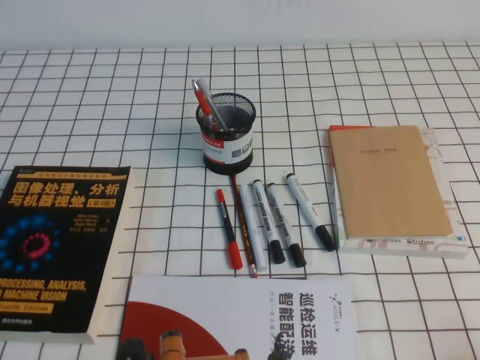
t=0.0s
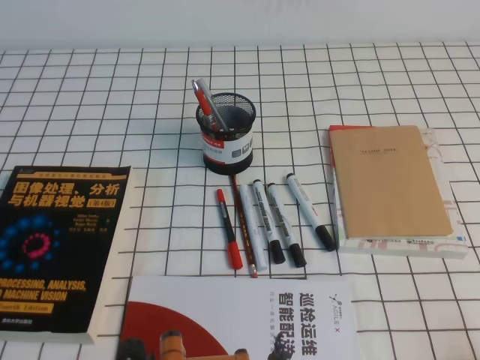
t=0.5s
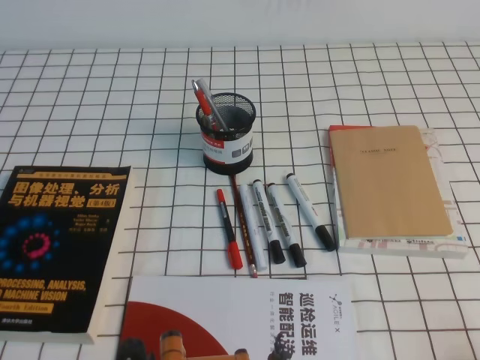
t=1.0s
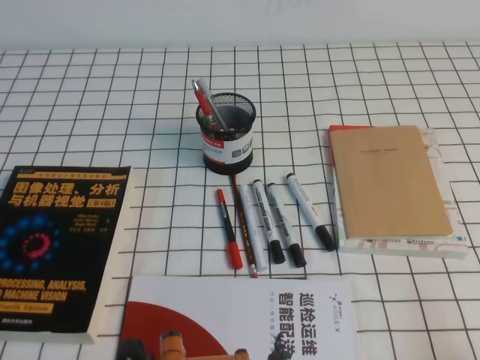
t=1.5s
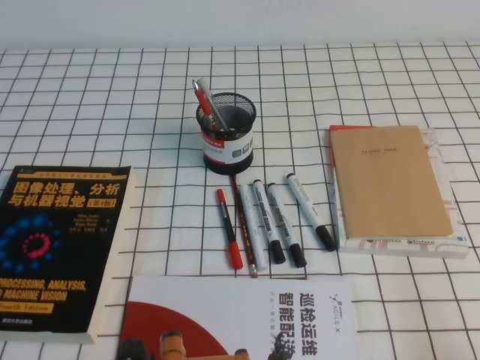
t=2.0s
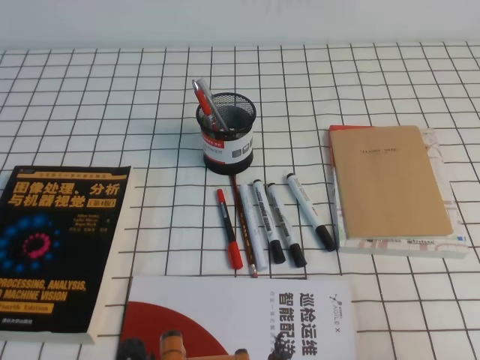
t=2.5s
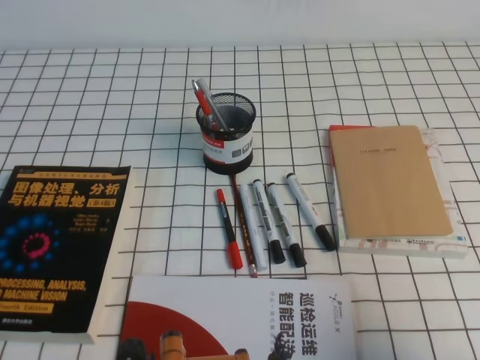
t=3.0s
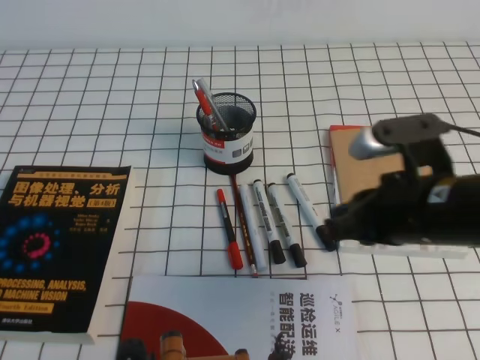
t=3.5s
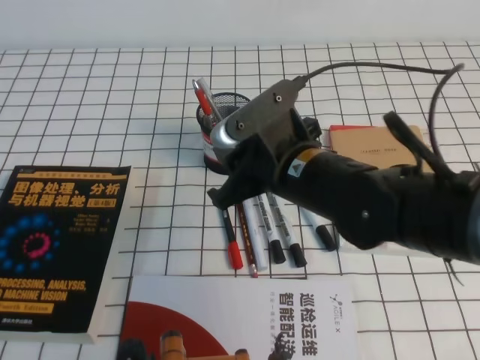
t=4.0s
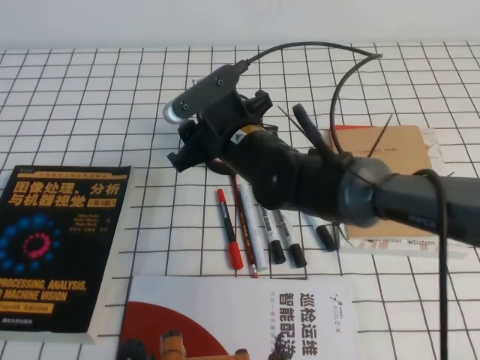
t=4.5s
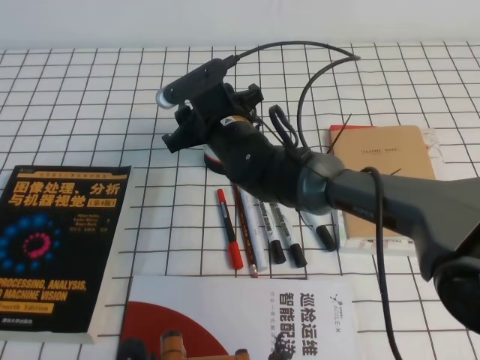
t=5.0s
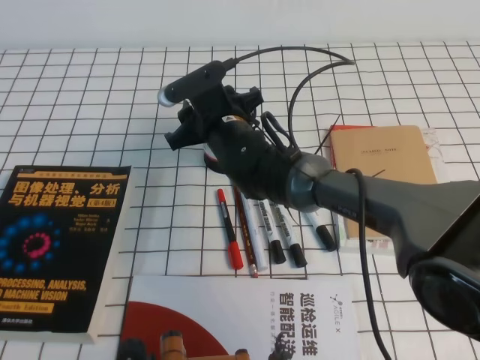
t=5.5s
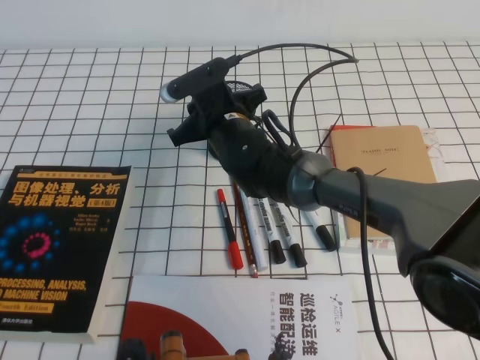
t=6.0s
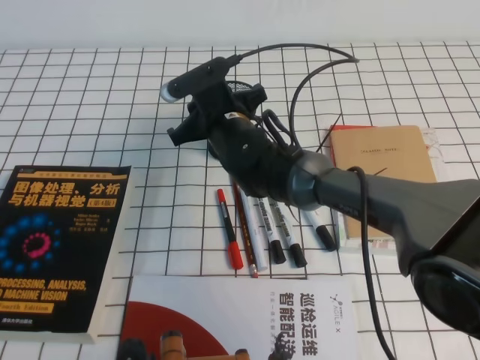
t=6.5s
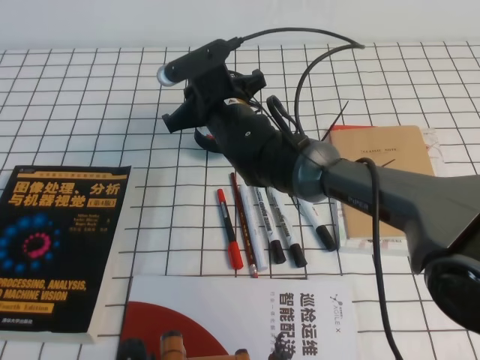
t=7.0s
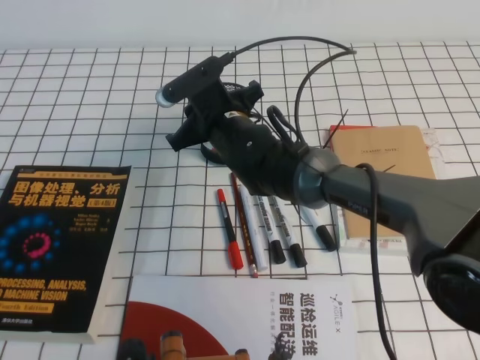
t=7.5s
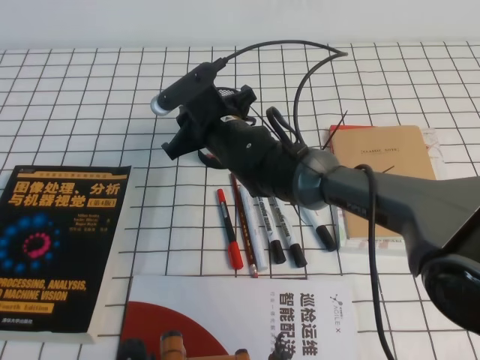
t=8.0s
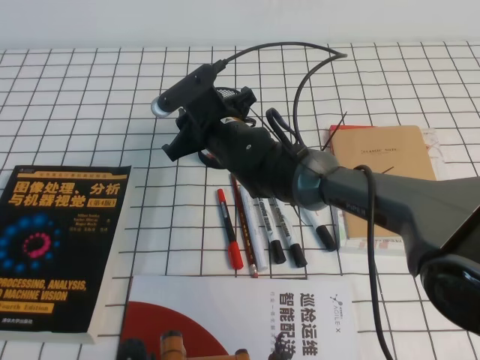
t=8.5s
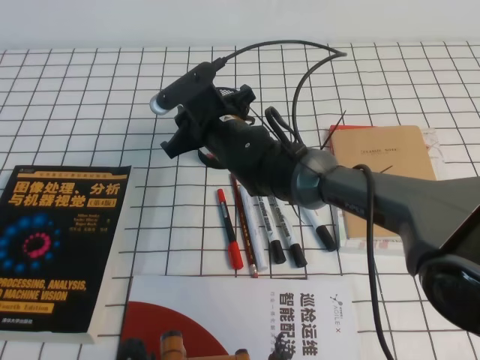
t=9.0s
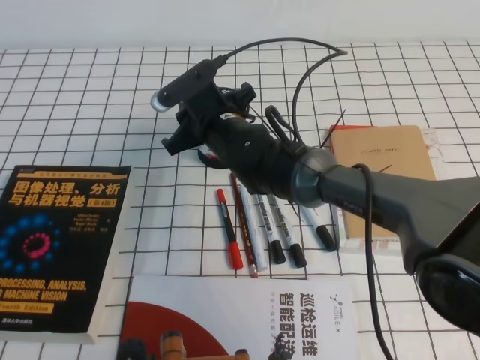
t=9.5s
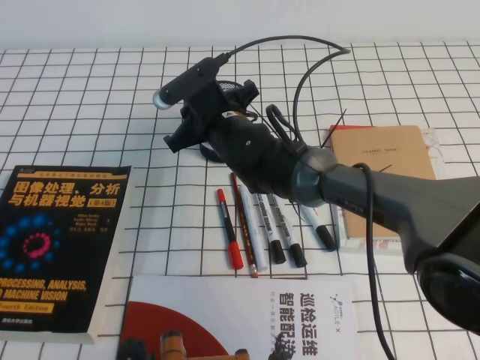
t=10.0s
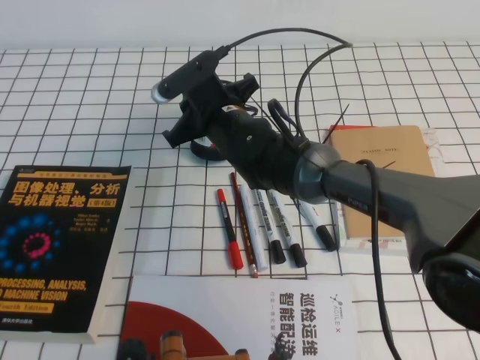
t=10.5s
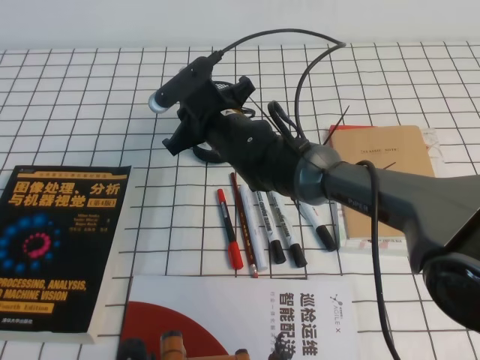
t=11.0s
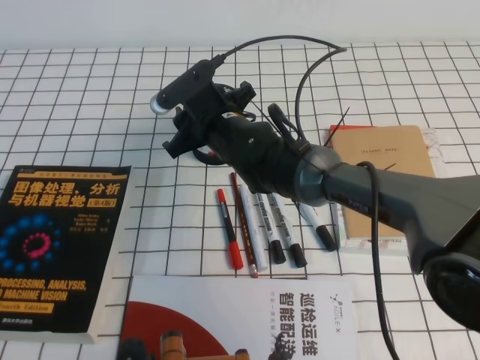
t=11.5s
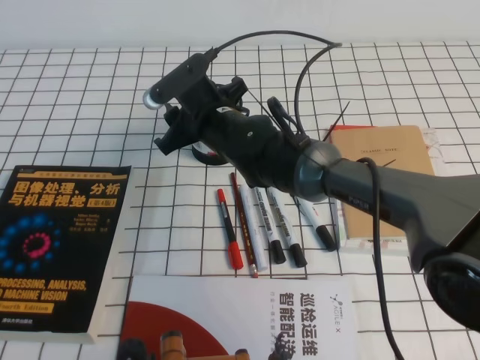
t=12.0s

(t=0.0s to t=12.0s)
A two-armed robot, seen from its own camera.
t=2.0s - t=4.0s: The right gripper travels to the left and forward by approximately 35 cm, and opens.
t=4.0s - t=6.0s: The right gripper travels forward, to the left and downward by roughly 20 cm, and opens, then closes again.
t=6.0s - t=8.0s: There are only small adjustments of the grippers.
t=8.0s - t=10.0s: Both grippers stay about where they are.
t=10.0s - t=12.0s: The right gripper opens up.

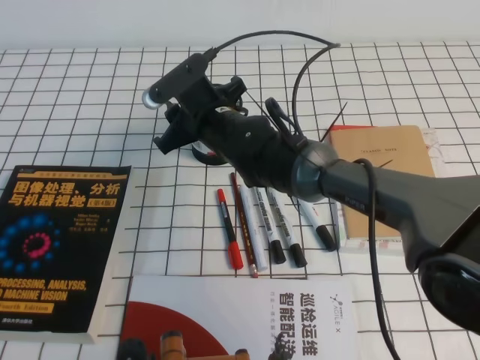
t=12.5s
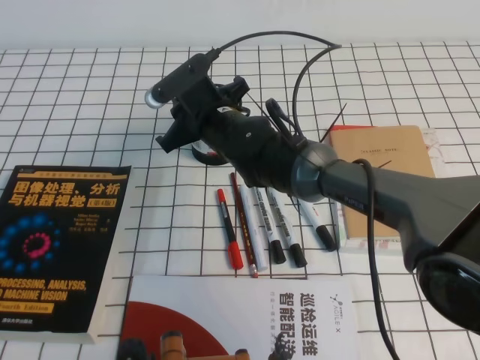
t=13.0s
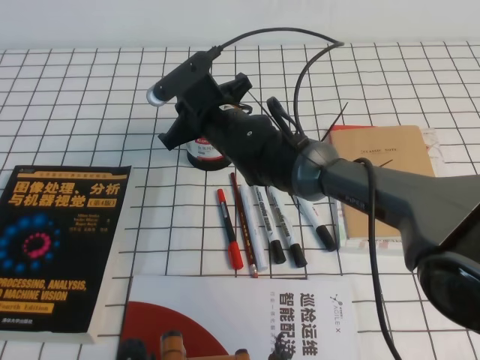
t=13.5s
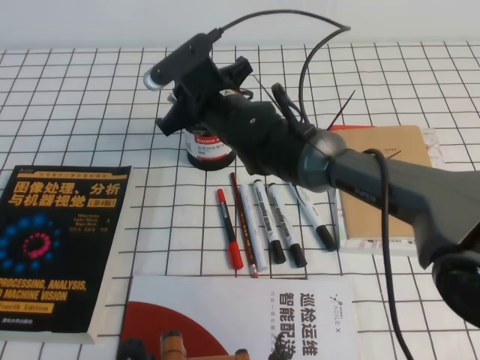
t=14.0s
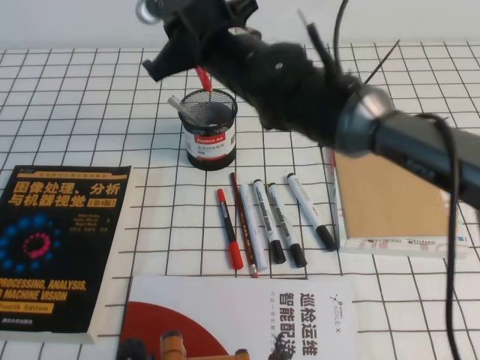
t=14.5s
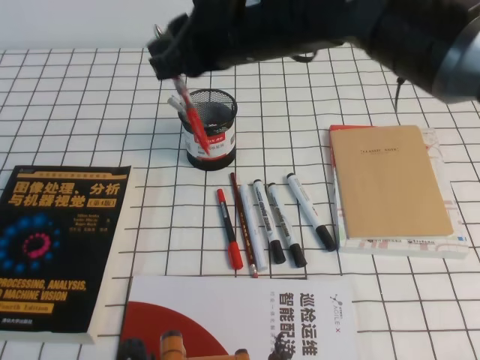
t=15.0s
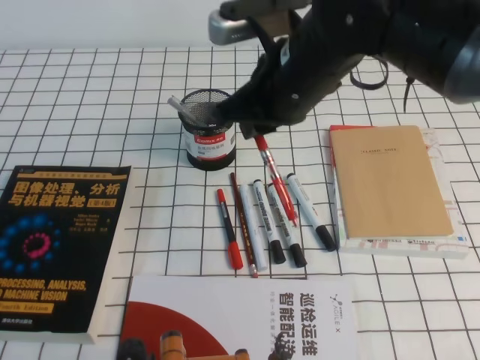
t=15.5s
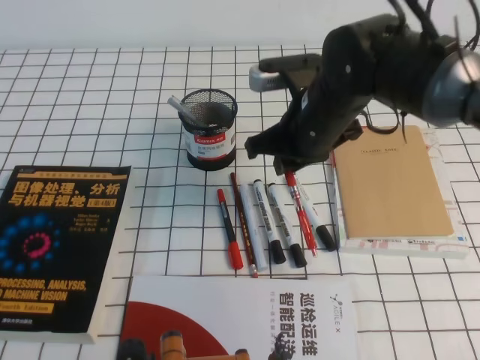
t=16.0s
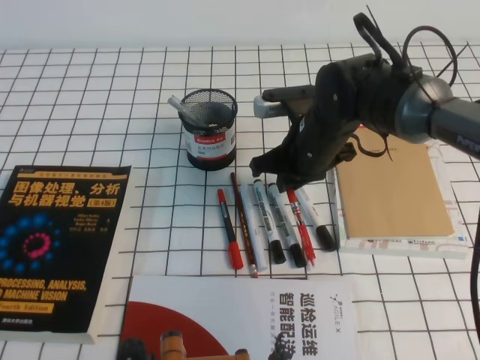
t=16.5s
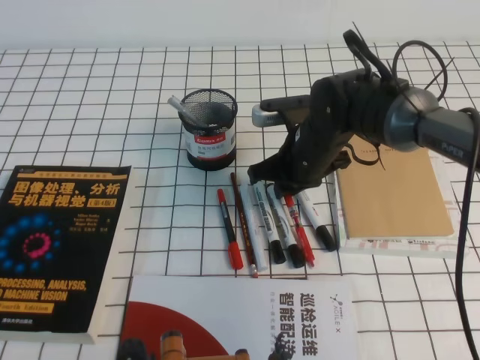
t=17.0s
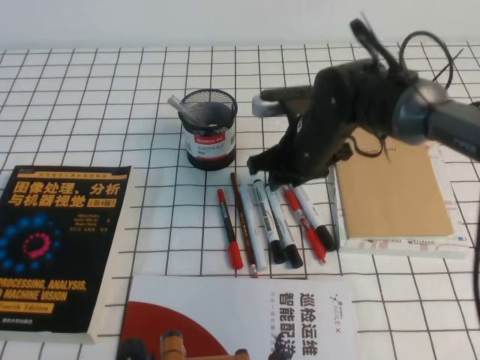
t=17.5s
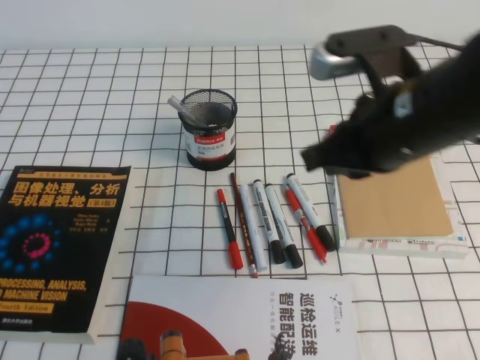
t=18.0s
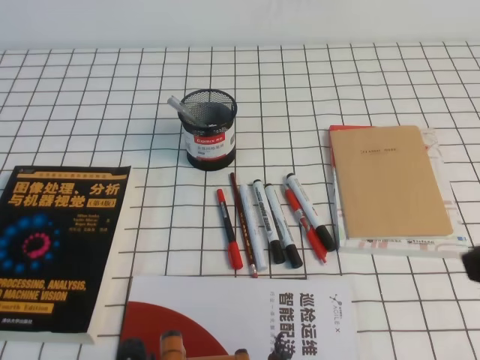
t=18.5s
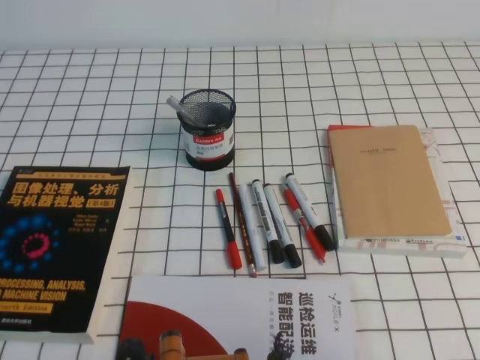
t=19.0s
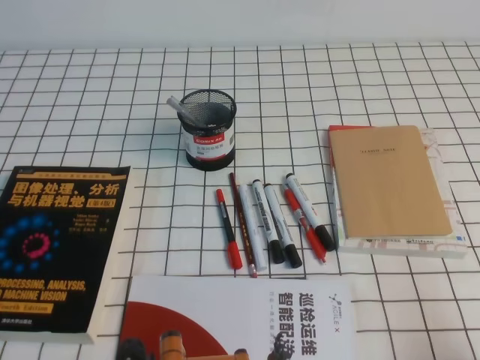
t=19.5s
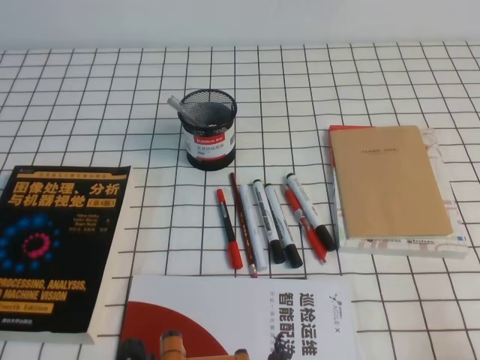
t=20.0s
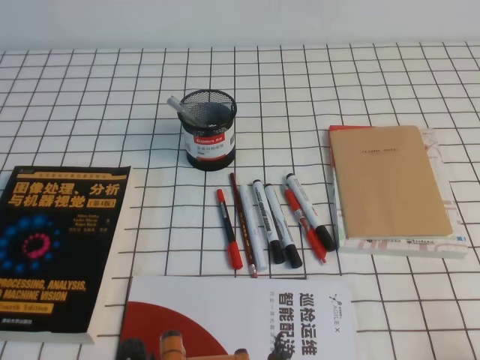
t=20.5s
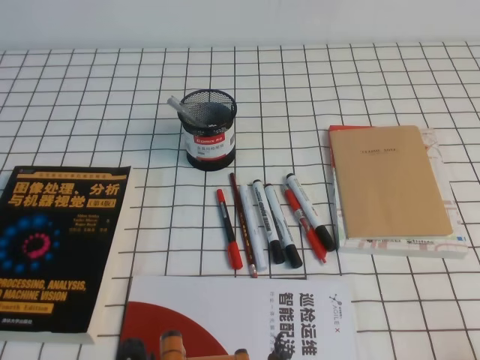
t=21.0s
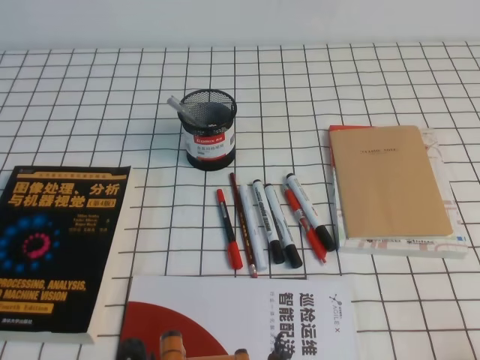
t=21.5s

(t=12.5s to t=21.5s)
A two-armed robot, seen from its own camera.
Step, t=12.5s - t=21.5s: Pick up the pen from the pen holder.
t=12.5s - t=14.5s: The right gripper shifts about 10 cm upward, and closes its fingers.
t=14.5s - t=17.0s: The right gripper shifts roughly 15 cm downward and to the right.
t=17.0s - t=19.5s: The right gripper travels backward and to the right by roughly 40 cm, and opens, then closes again.
